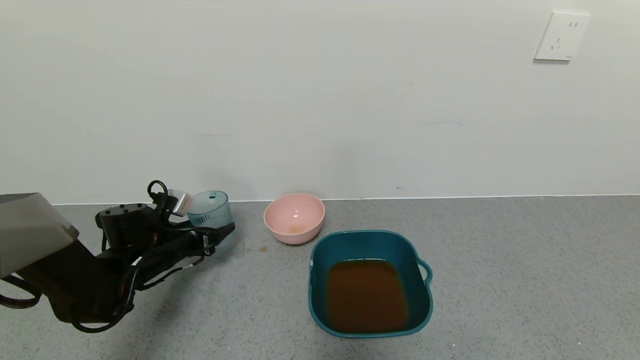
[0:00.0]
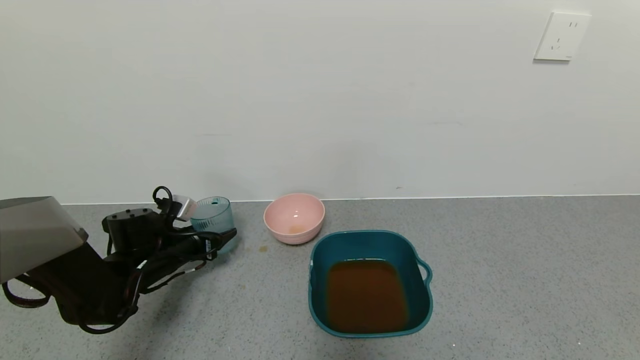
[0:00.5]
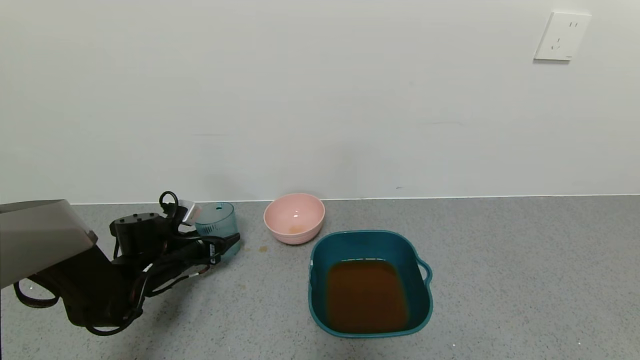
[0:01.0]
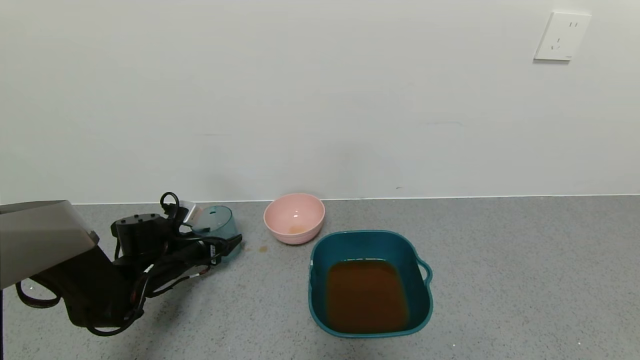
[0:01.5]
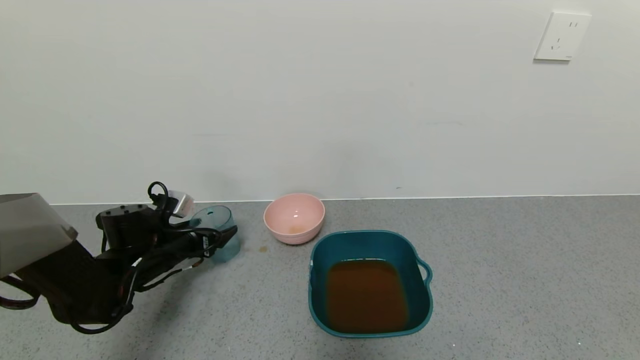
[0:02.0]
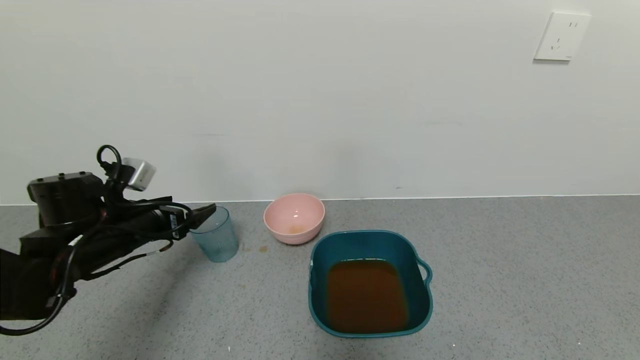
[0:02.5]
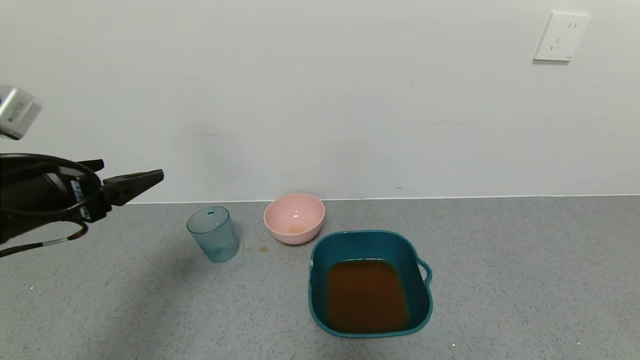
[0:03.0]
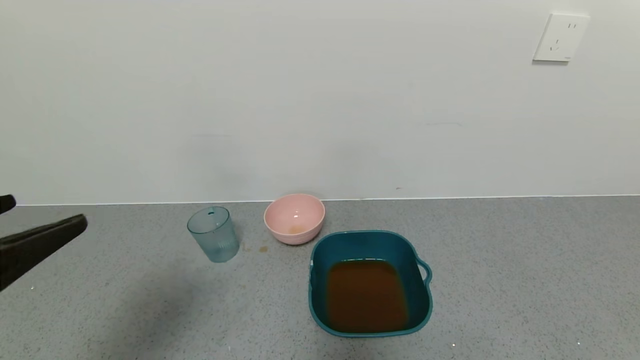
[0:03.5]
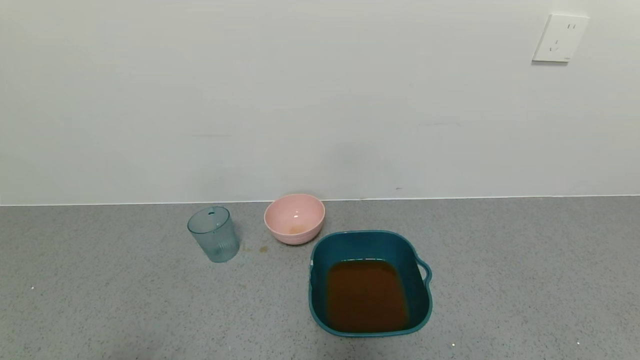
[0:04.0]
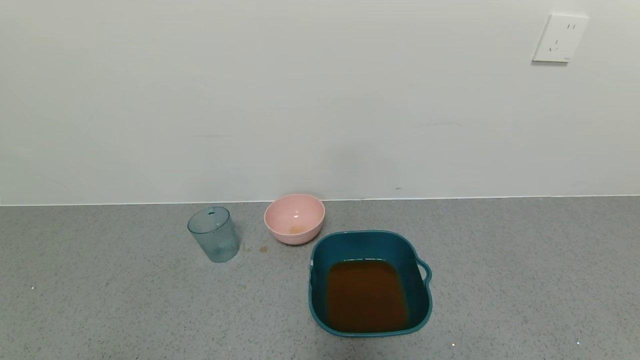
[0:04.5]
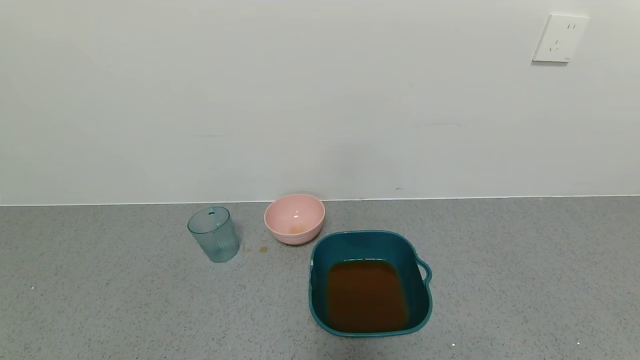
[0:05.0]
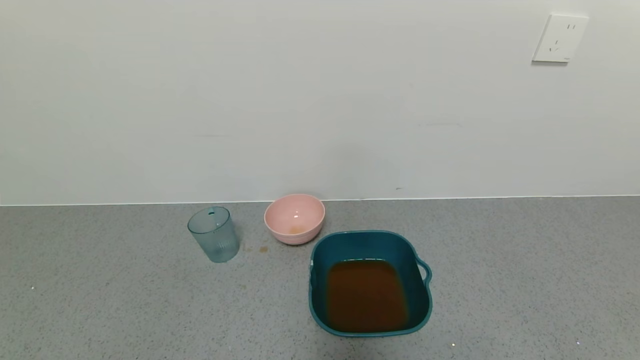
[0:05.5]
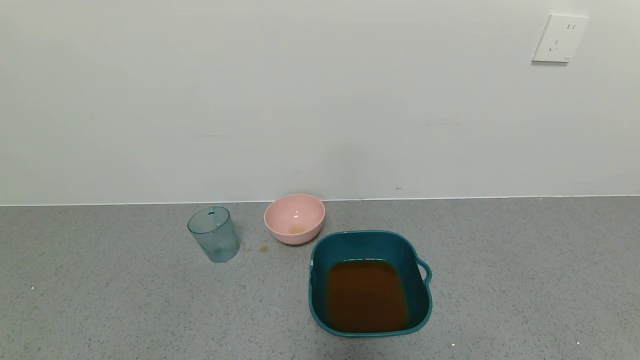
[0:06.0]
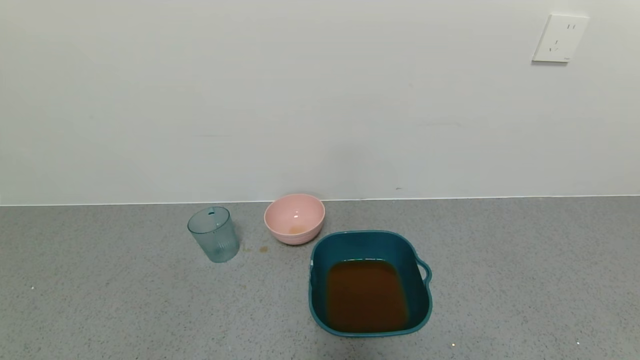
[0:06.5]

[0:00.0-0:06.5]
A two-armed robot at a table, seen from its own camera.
Task of the whole recording: use a gripper to pick up the cup and pour the liquid into a bowl or tray.
0:00.0 to 0:02.0: The left gripper opens up.
0:02.0 to 0:04.5: The left gripper travels backward by approximately 40 cm.
